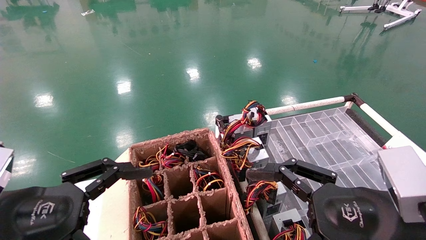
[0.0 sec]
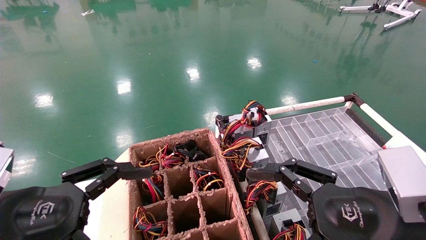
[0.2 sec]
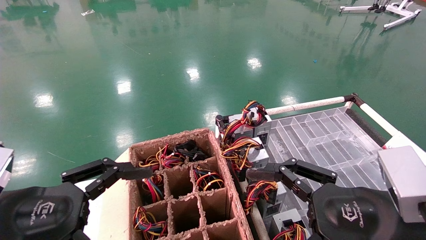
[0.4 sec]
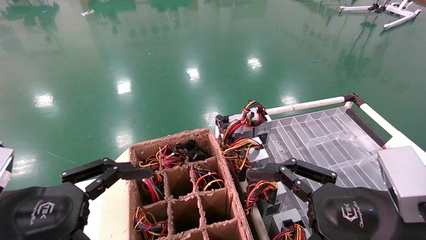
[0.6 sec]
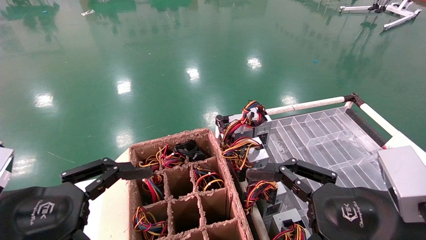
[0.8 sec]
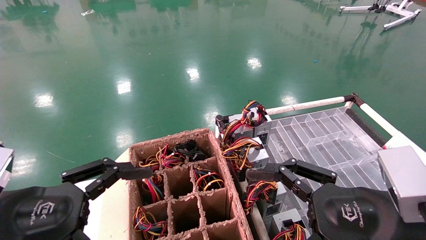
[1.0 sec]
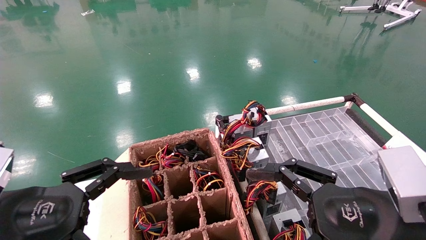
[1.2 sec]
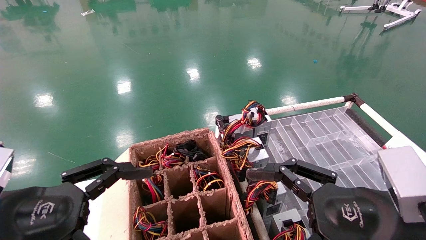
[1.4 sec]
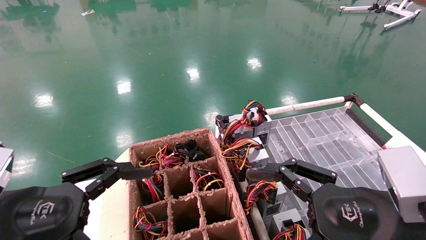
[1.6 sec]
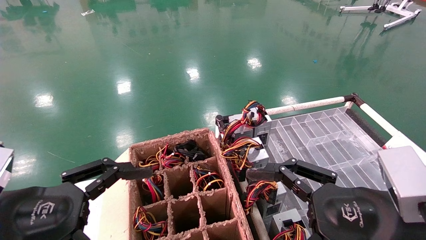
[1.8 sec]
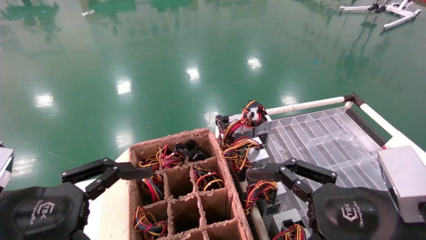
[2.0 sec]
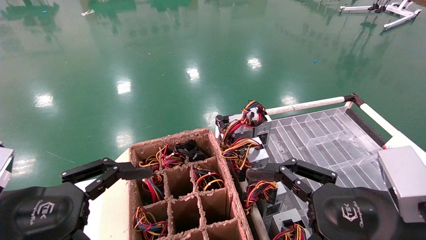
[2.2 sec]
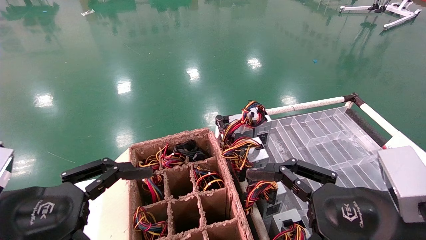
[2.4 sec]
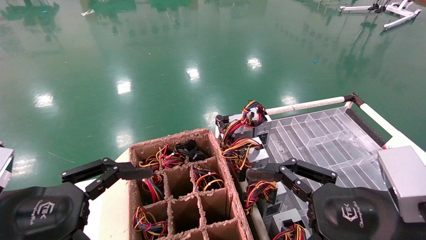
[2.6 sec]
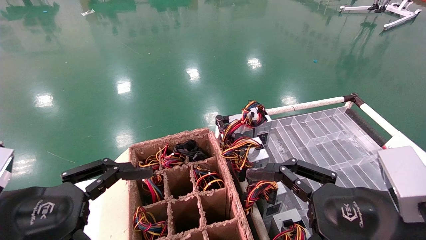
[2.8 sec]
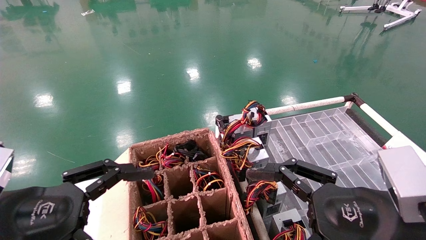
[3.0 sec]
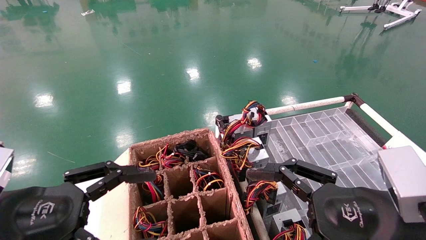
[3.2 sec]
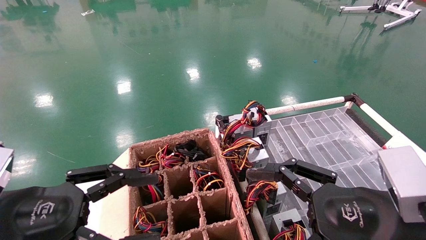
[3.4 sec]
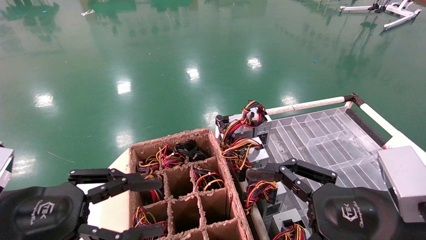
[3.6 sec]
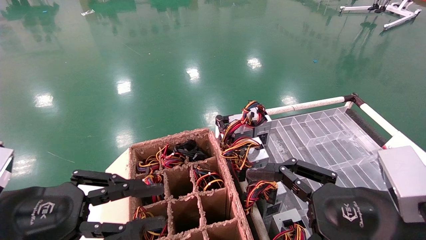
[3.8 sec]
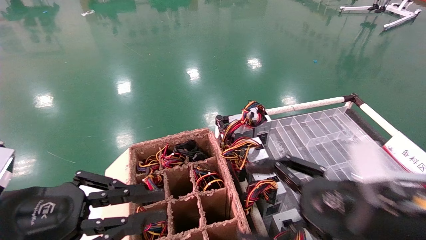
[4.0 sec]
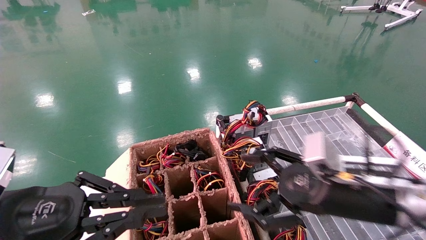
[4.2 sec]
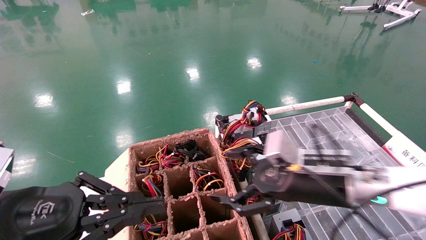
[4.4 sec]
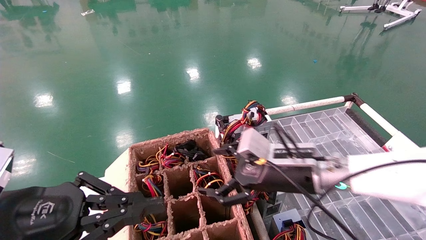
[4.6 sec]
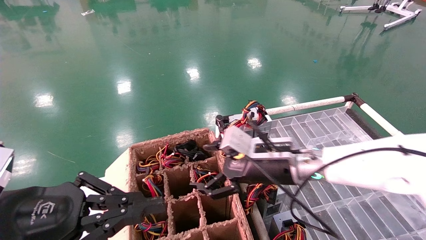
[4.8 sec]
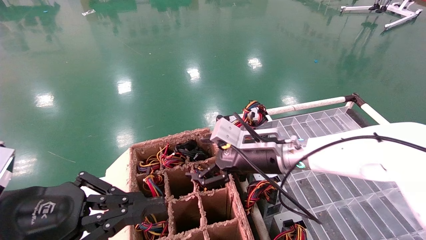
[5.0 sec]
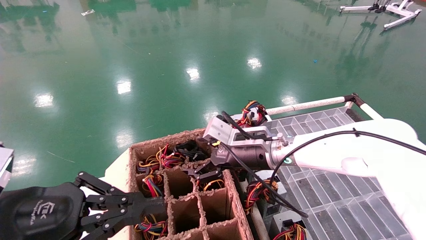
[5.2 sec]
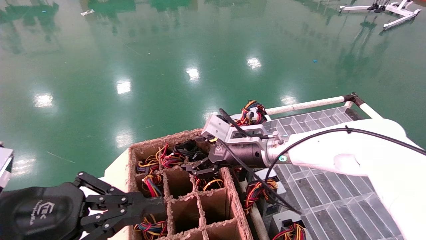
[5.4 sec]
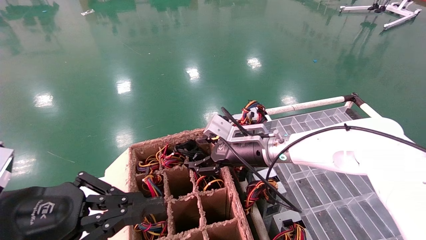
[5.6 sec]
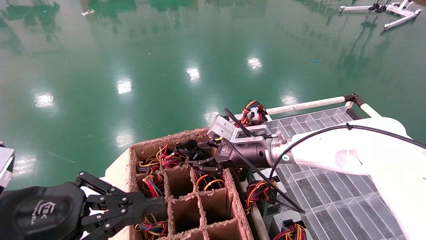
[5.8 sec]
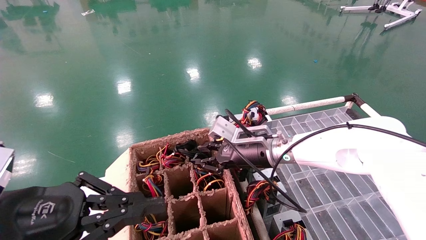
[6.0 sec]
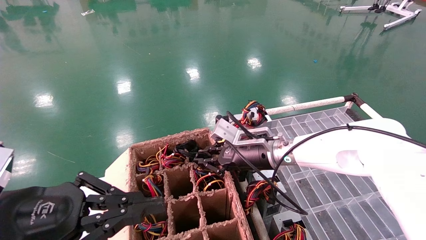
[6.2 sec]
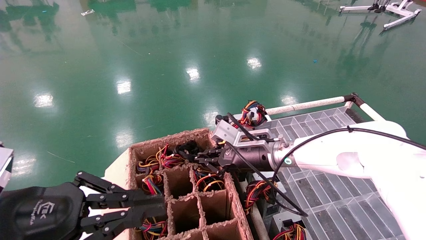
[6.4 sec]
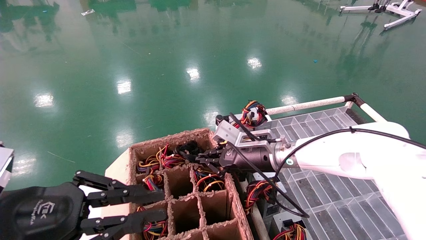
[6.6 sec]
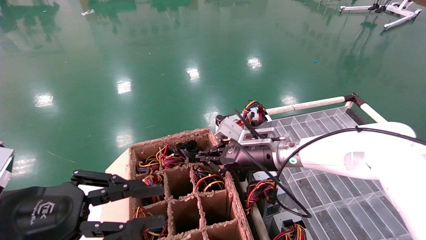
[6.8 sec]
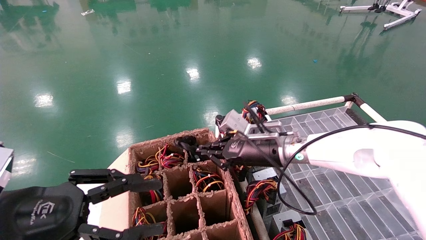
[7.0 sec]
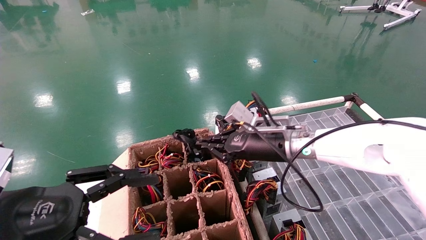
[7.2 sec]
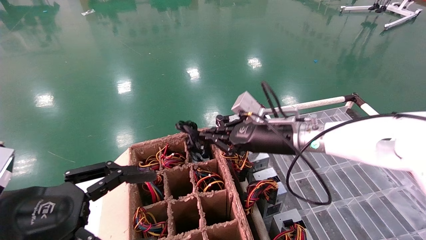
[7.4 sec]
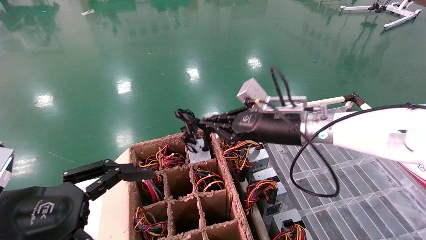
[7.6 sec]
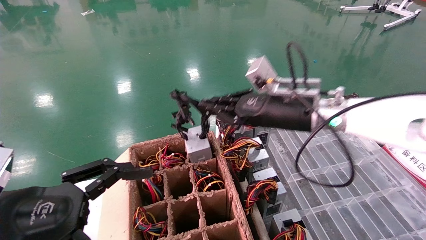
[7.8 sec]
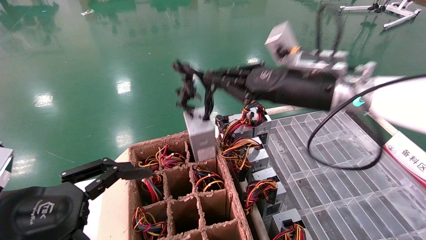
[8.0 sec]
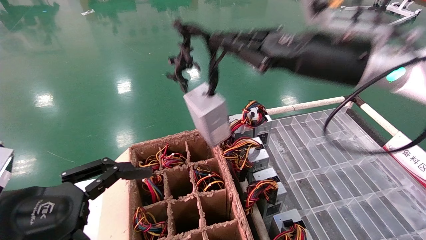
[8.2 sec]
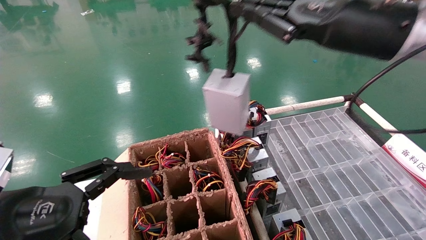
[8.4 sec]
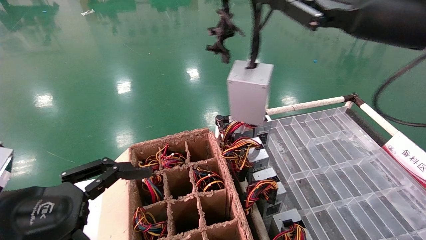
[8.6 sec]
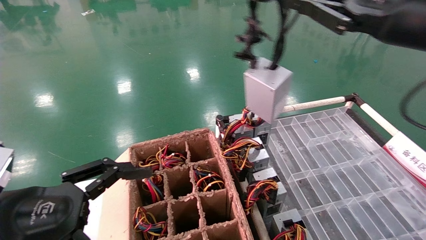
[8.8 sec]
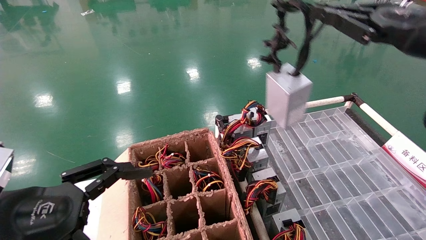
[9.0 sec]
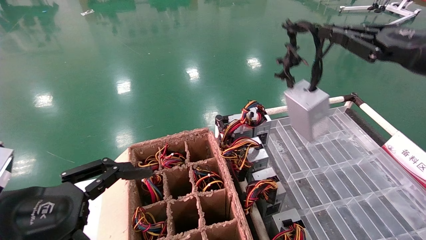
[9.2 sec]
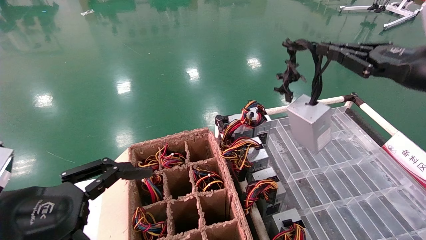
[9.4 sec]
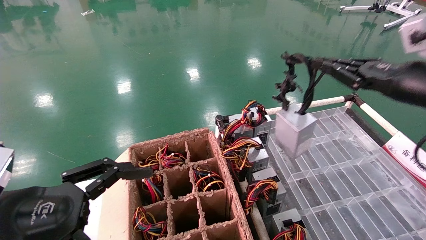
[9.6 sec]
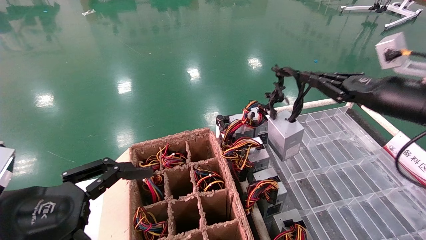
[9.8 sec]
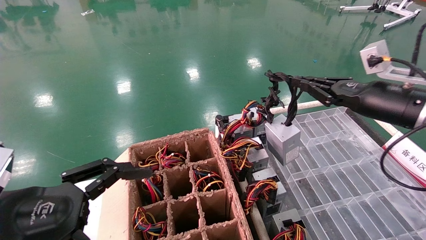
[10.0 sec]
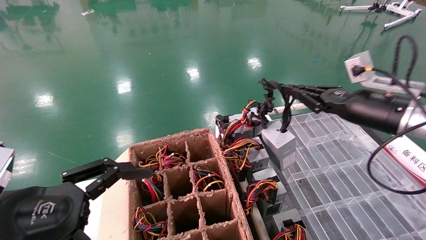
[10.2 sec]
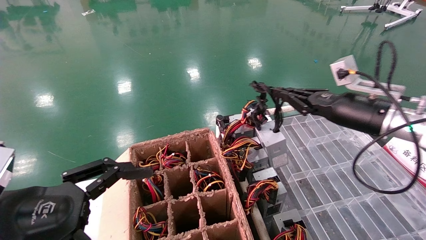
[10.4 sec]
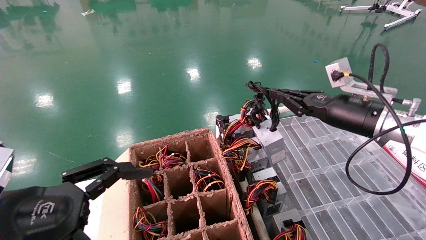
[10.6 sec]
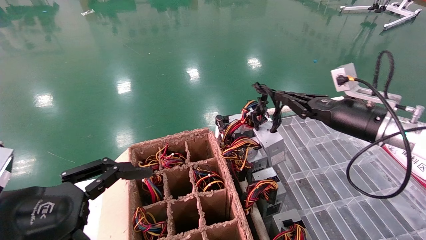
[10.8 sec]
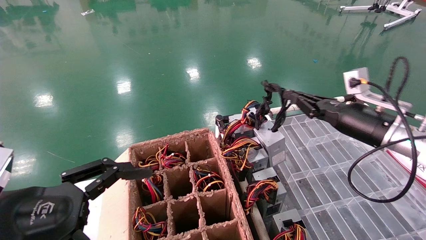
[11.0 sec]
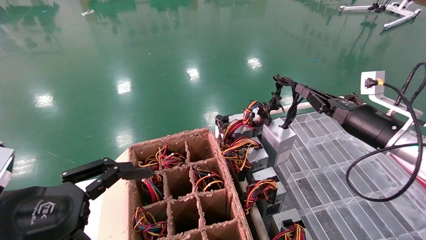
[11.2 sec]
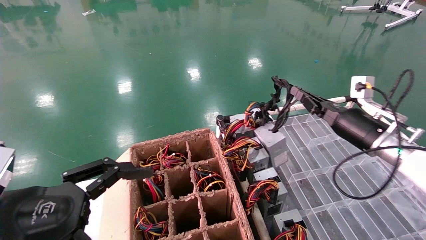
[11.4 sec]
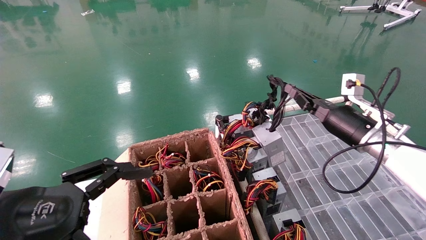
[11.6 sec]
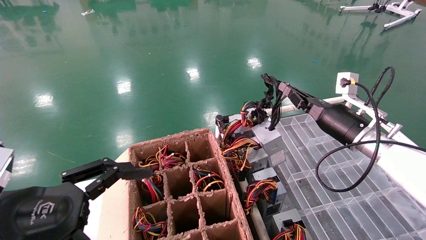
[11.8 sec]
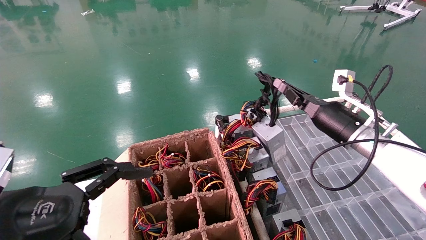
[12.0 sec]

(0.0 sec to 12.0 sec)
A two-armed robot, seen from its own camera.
Step, 4.6 sec - 6.8 sec: Grab and lift the power supply from the large box.
0.0 sec - 3.0 sec: The two grippers keep their place.
3.0 sec - 4.4 sec: The left gripper closes up. The right gripper heads forward, covering roughly 15 cm.
4.4 sec - 6.0 sec: The right gripper moves forward and to the left, approximately 15 cm, and closes up.
6.0 sec - 7.6 sec: The right gripper shifts approximately 10 cm upward, and closes its fingers, while the left gripper opens.
7.6 sec - 9.0 sec: The right gripper travels to the right, upward and backward by approximately 25 cm.
9.0 sec - 10.4 sec: The right gripper moves downward and forward, approximately 15 cm.
10.4 sec - 12.0 sec: The right gripper travels downward by some 5 cm.

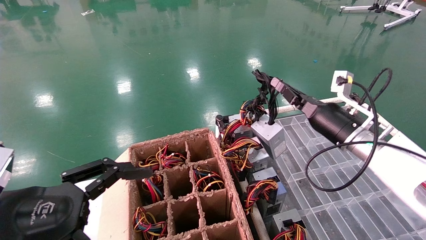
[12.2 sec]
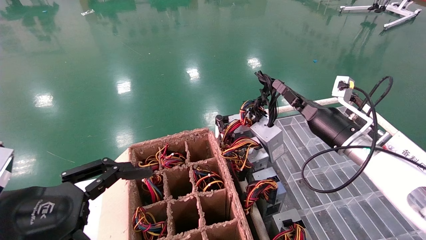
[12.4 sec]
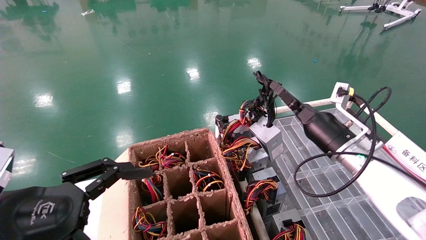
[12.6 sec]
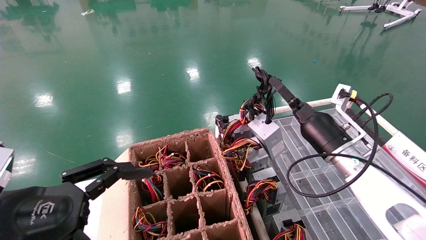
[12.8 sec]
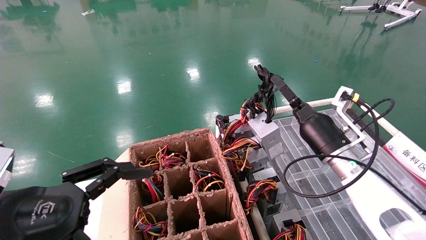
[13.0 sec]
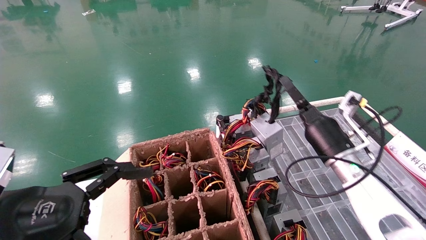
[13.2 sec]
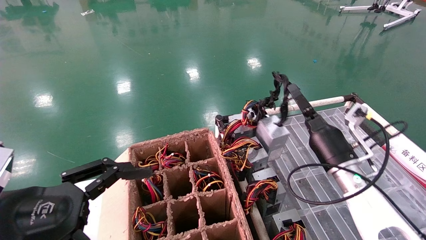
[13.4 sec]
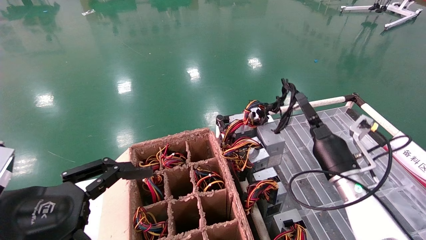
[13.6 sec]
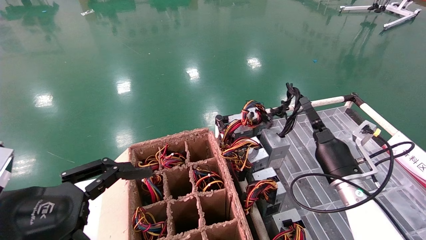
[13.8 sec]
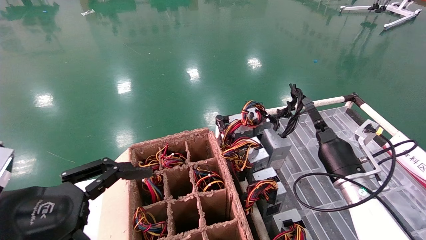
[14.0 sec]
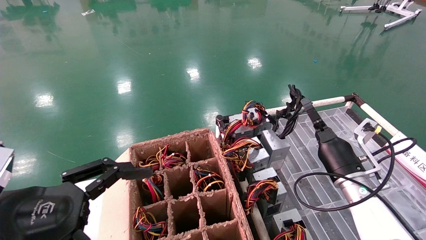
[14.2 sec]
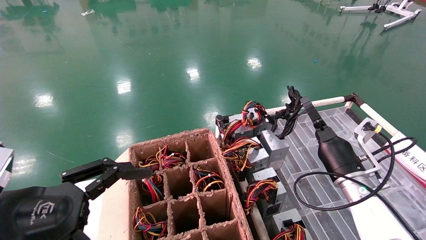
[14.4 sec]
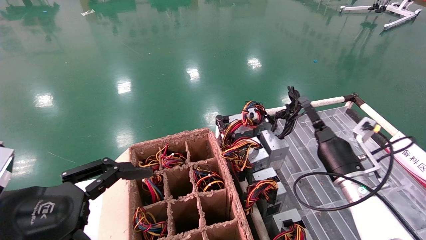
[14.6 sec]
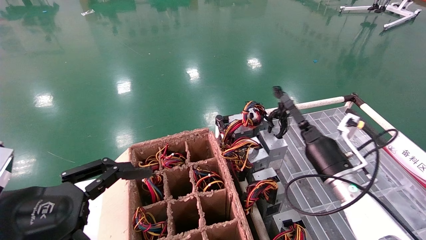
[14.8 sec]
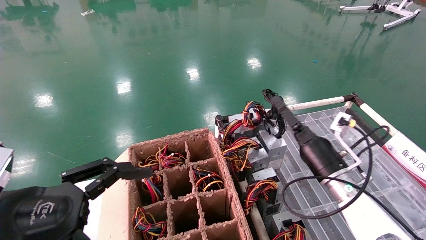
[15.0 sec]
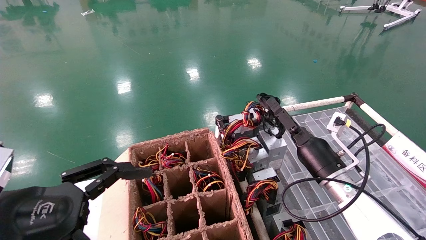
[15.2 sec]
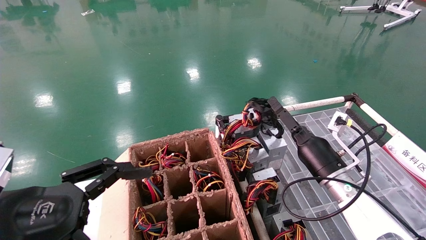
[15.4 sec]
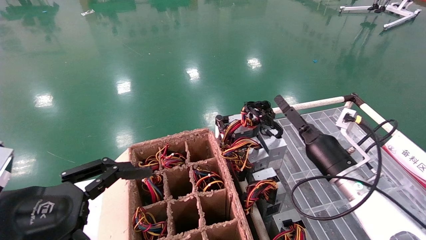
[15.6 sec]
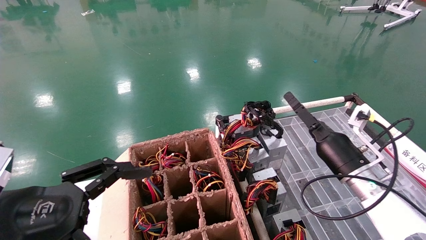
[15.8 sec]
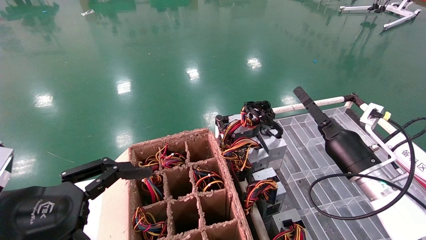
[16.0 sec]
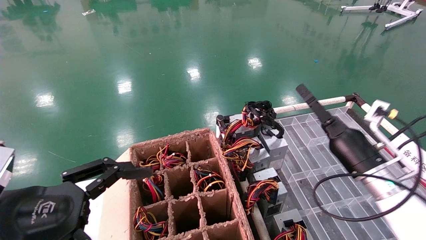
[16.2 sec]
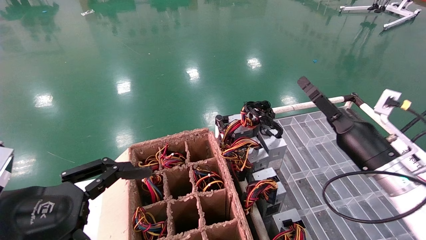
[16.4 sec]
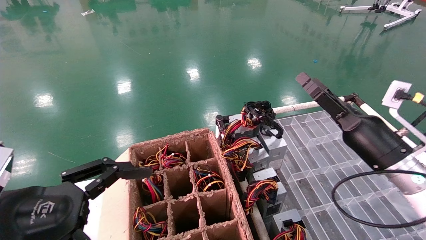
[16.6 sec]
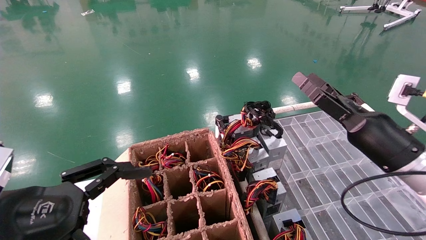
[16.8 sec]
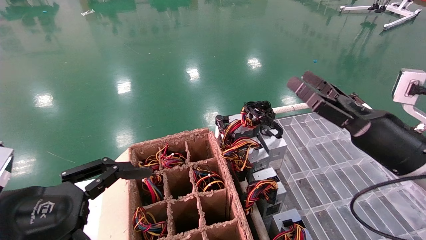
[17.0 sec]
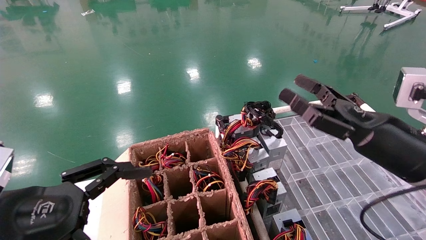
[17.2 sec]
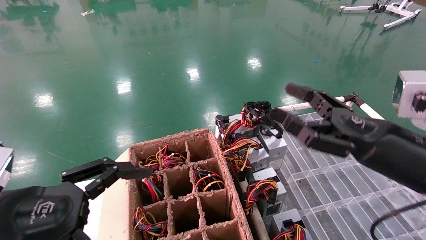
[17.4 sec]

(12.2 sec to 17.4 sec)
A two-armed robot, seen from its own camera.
Step, 12.2 sec - 14.6 sec: Place the power supply on the operating table.
12.2 sec - 14.0 sec: The right gripper shifts roughly 10 cm downward.
14.0 sec - 15.6 sec: The right gripper opens its fingers.
15.6 sec - 17.4 sec: The right gripper travels backward and upward by some 20 cm.
